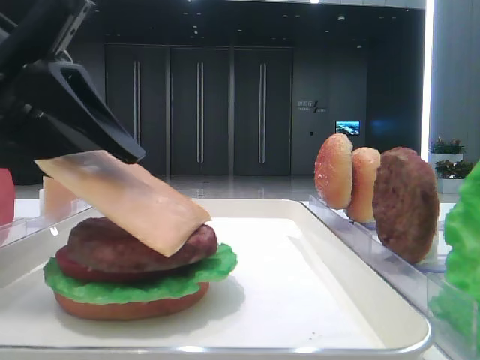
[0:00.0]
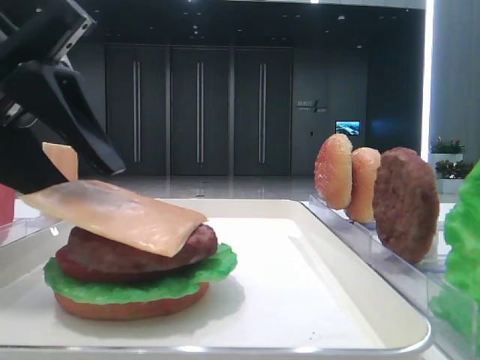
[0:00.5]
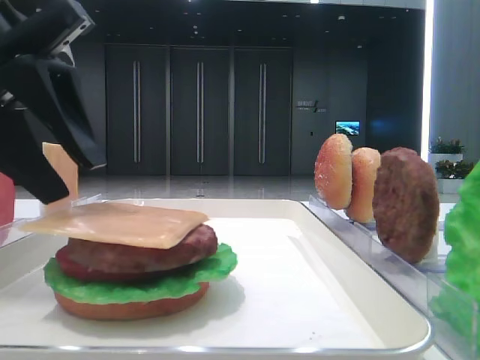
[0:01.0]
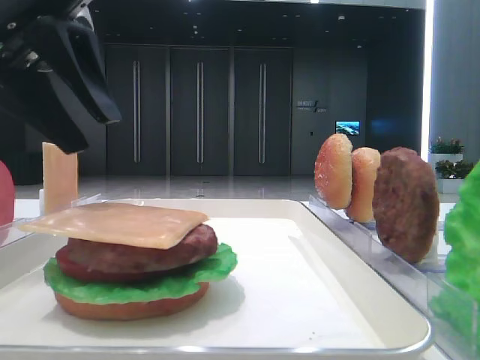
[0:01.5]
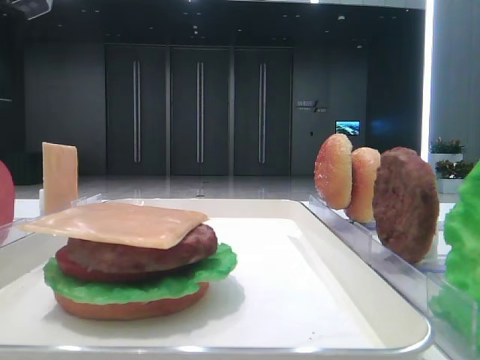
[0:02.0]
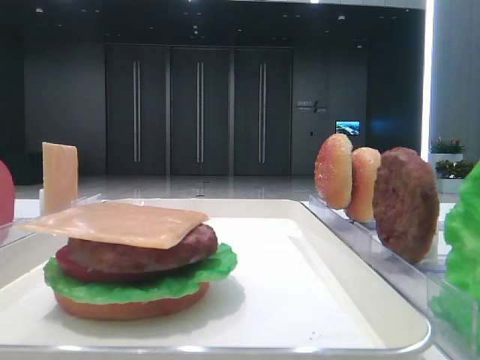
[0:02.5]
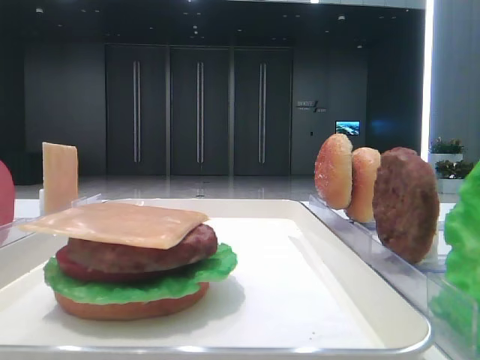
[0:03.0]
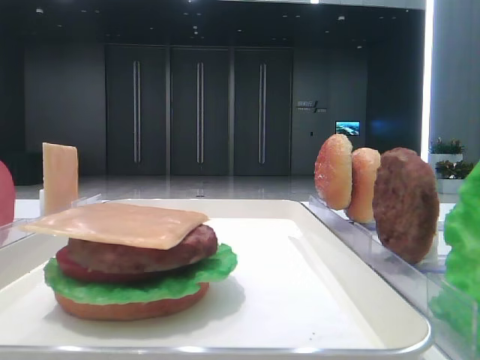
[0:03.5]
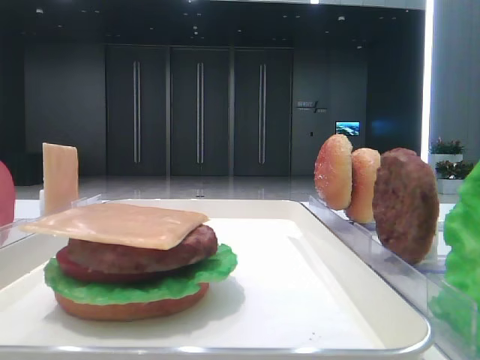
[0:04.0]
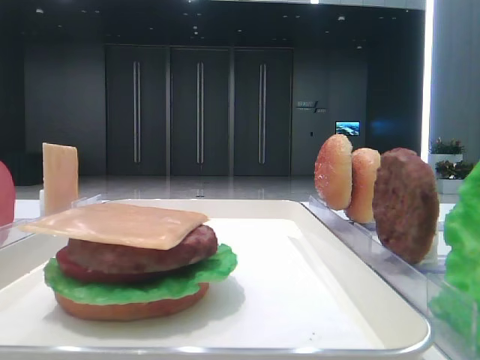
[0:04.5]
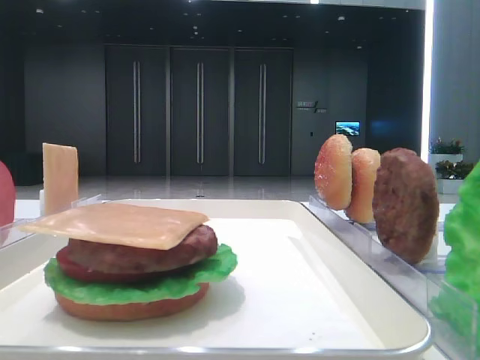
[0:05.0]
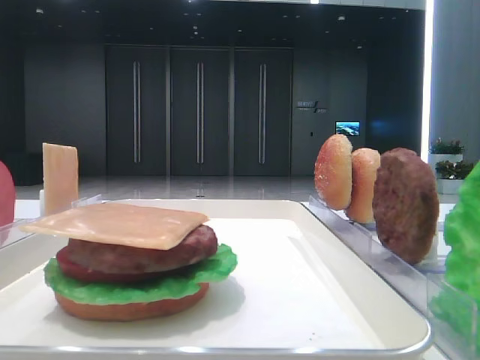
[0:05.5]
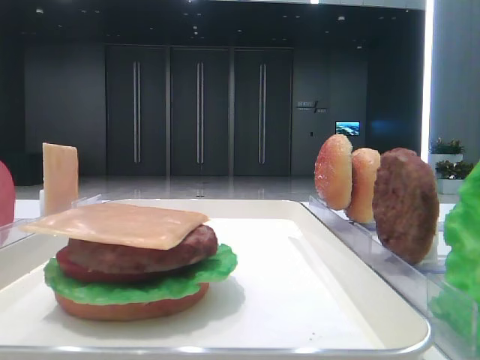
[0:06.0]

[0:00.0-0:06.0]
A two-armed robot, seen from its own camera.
0:00.0 to 0:02.0: The left gripper goes roughly 15 cm upward, forward and to the left.

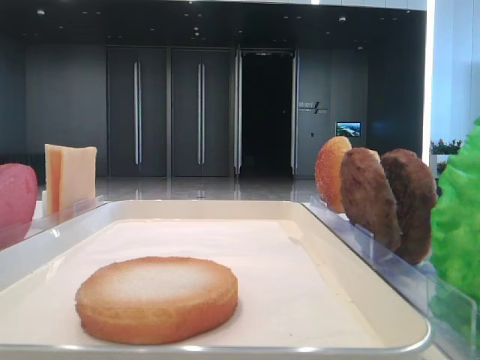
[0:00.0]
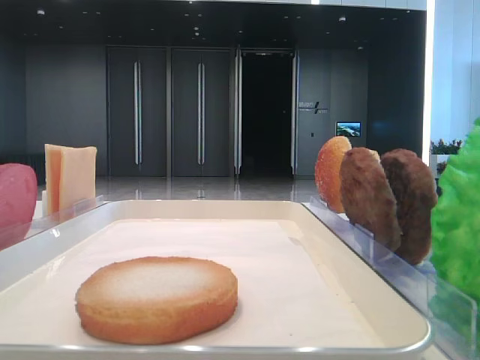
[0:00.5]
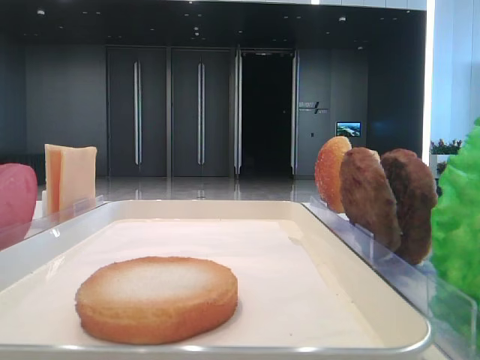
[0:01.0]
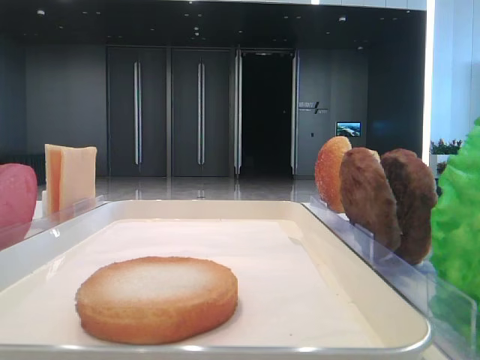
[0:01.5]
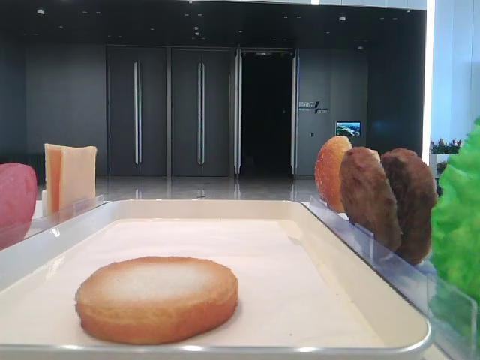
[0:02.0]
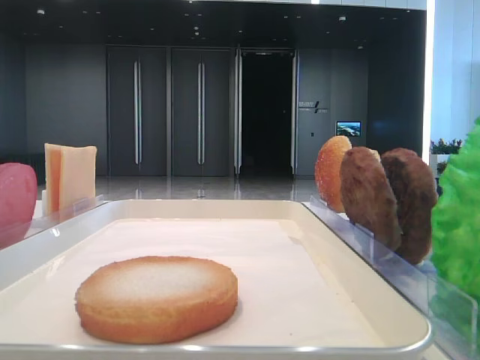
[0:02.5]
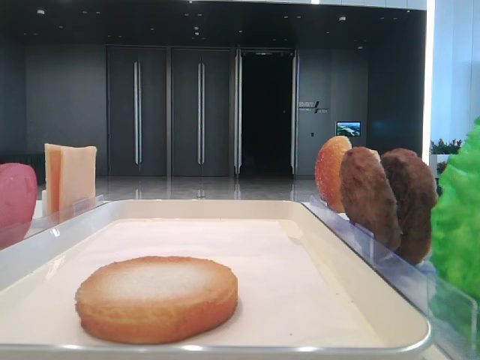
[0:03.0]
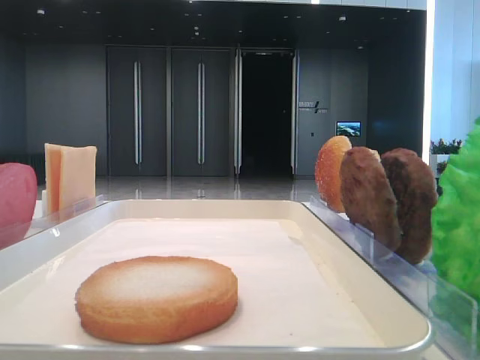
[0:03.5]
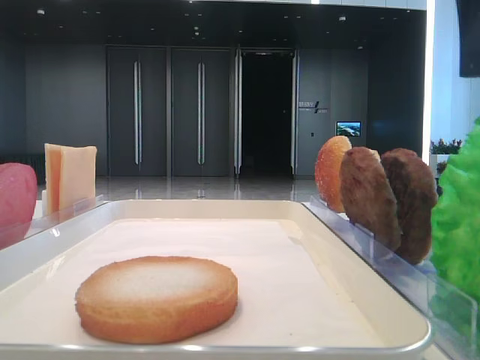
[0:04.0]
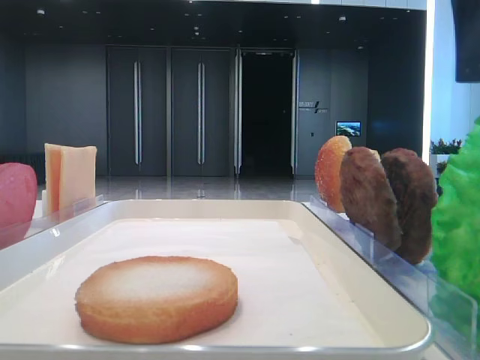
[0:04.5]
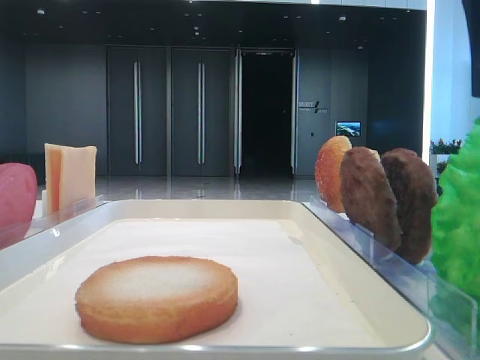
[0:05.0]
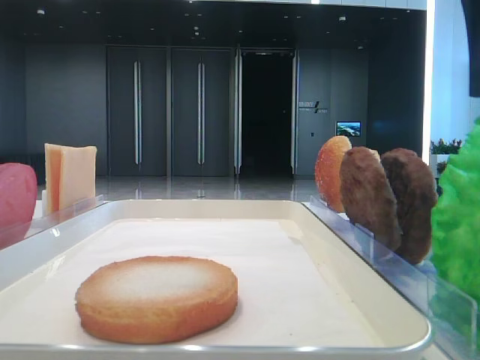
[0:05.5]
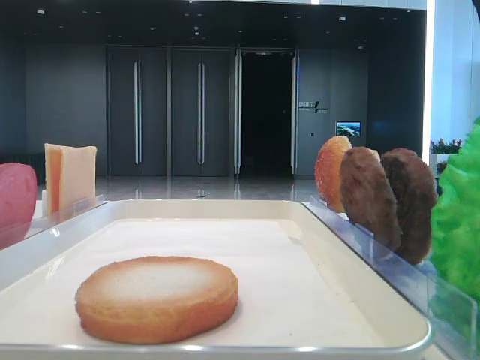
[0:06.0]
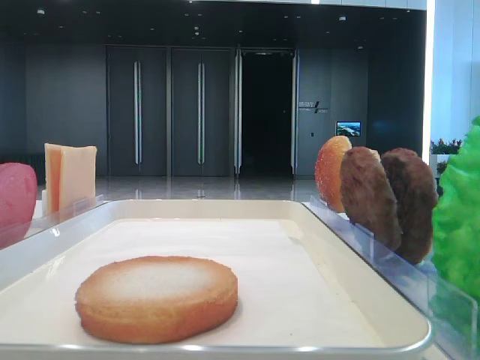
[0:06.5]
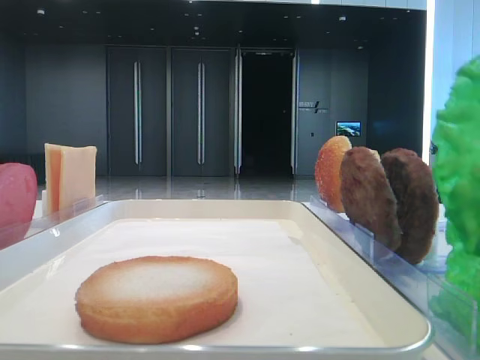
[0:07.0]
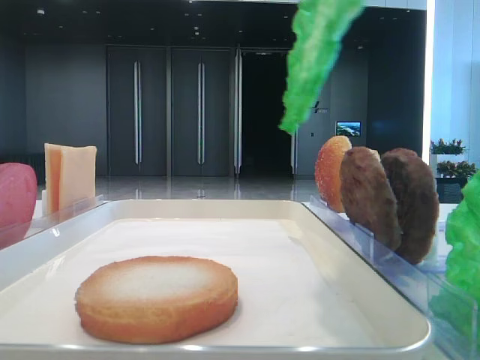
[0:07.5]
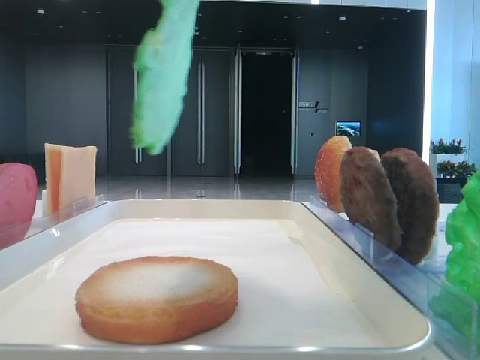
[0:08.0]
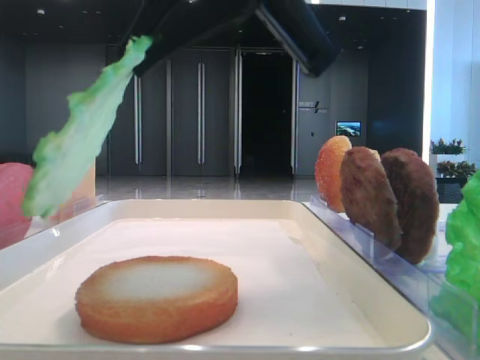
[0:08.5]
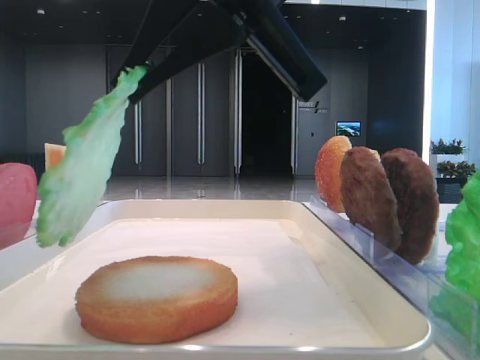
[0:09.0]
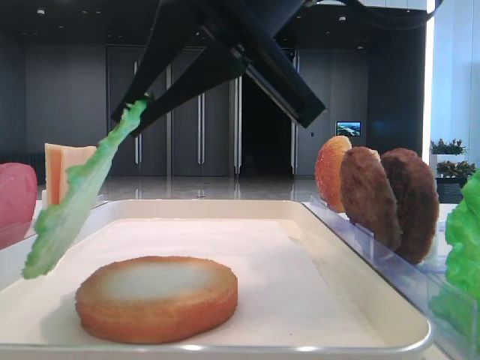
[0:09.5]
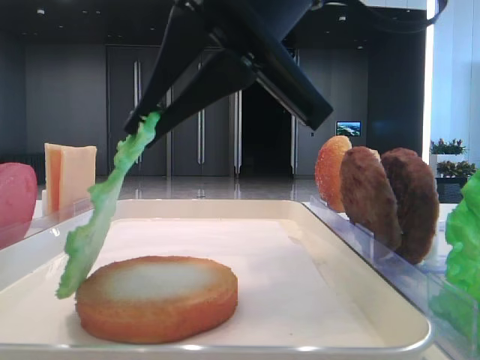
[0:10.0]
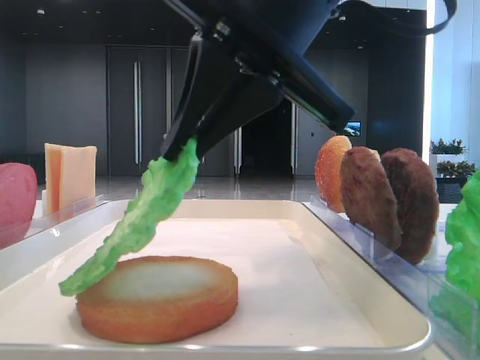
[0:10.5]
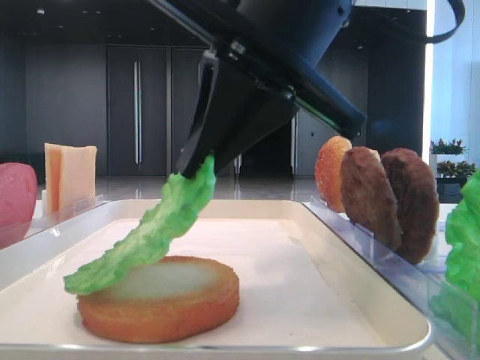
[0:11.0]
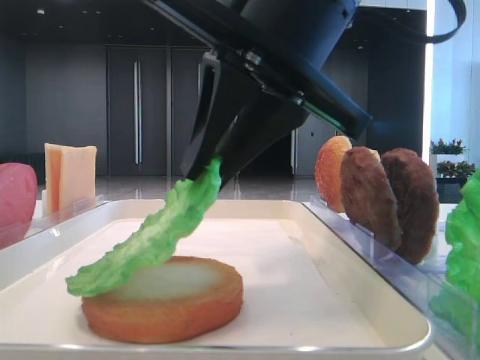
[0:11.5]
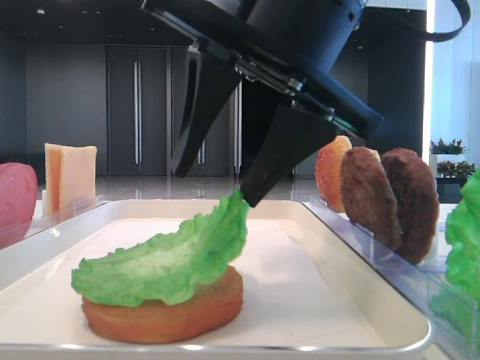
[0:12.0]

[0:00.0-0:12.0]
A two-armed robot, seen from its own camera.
Step, 0:07.0 to 0:12.0: Place the lettuce leaf on the bottom bread with the right hand.
0:02.0 to 0:04.0: The right gripper heads to the left and forward, covering some 15 cm.
0:04.0 to 0:06.0: The right gripper closes up.
0:06.0 to 0:08.0: The right gripper heads to the left, covering some 10 cm, and closes.
0:08.0 to 0:10.0: The right gripper moves downward, about 10 cm.
0:10.0 to 0:12.0: The right gripper opens up.

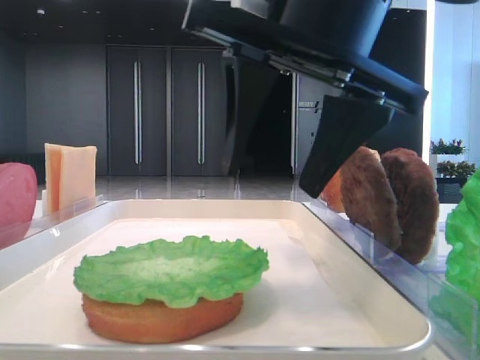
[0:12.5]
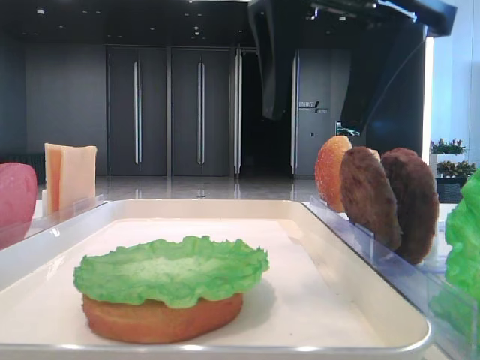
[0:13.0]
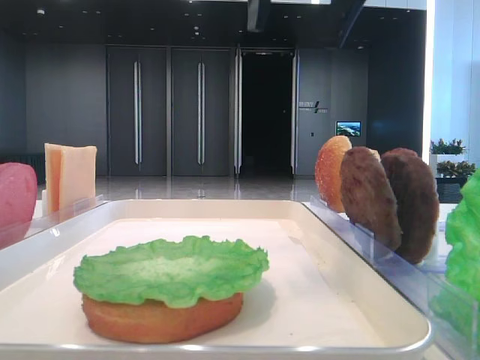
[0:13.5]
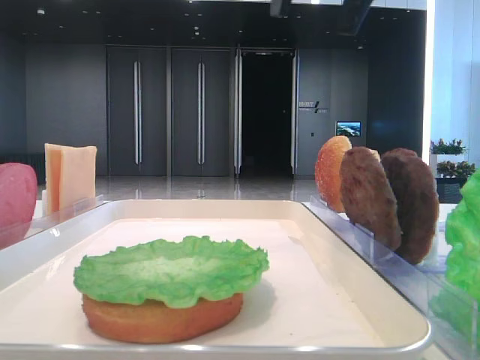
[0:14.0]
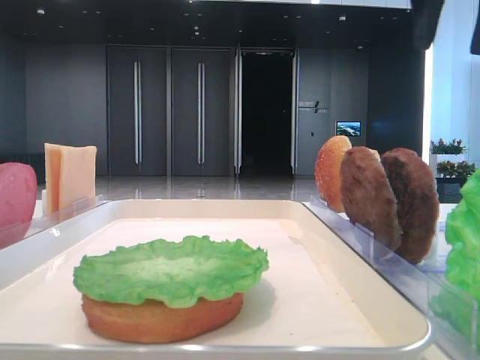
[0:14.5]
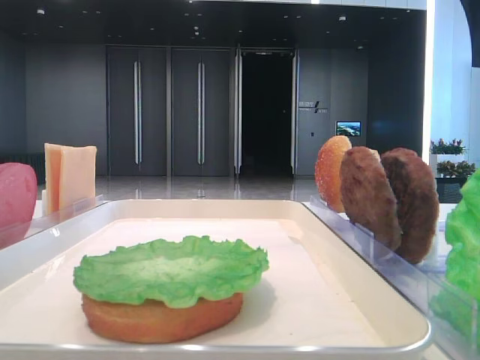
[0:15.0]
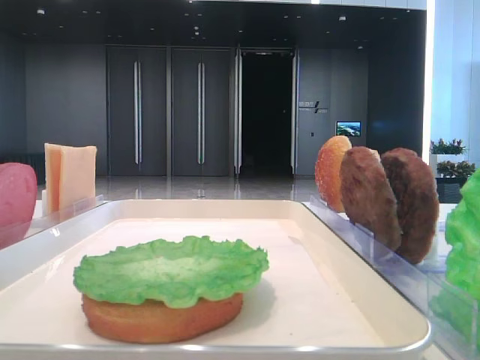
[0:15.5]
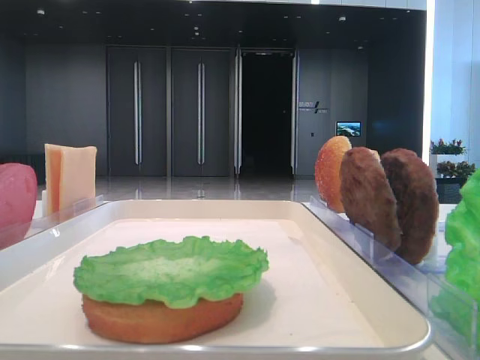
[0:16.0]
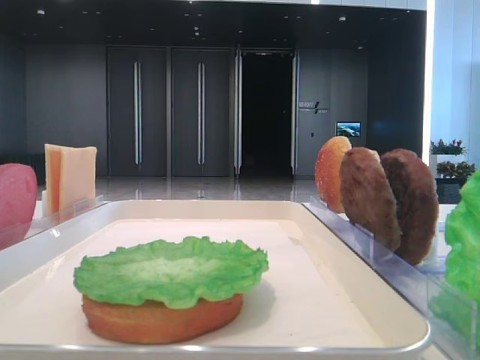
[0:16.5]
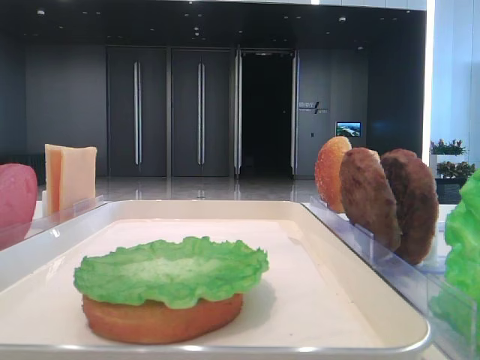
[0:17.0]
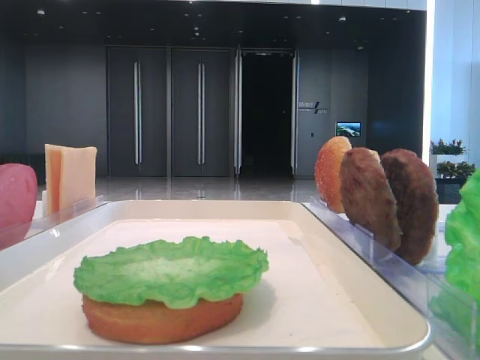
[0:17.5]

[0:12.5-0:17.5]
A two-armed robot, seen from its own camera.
0:12.5 to 0:15.0: The right gripper is displaced to the right, upward and forward by roughly 25 cm.
0:15.0 to 0:17.5: The right gripper heads backward, covering about 35 cm.

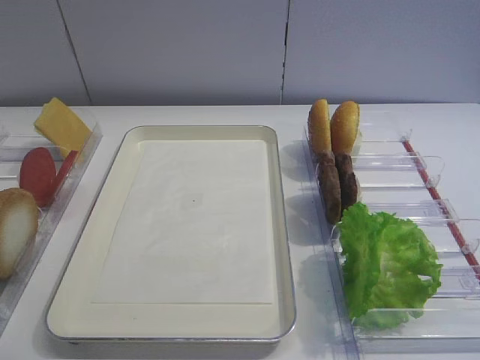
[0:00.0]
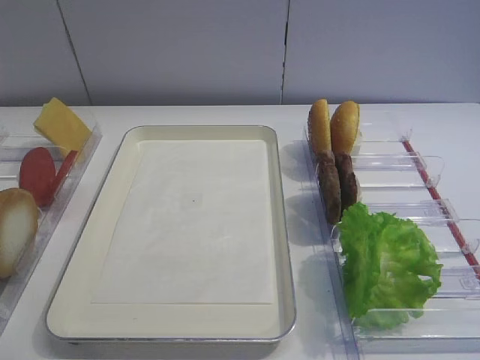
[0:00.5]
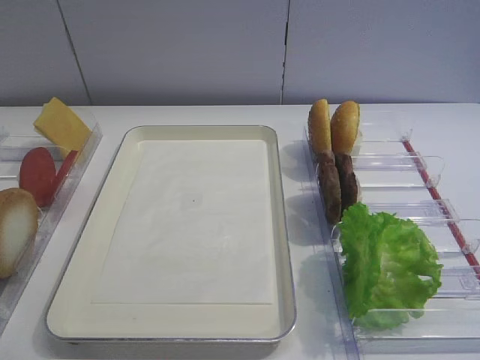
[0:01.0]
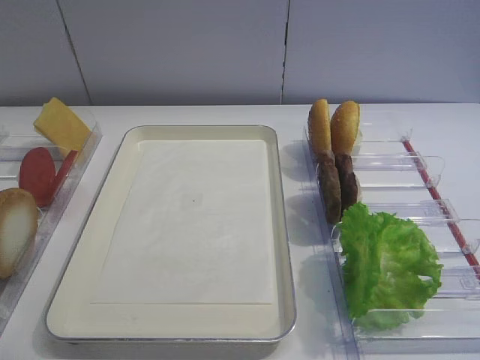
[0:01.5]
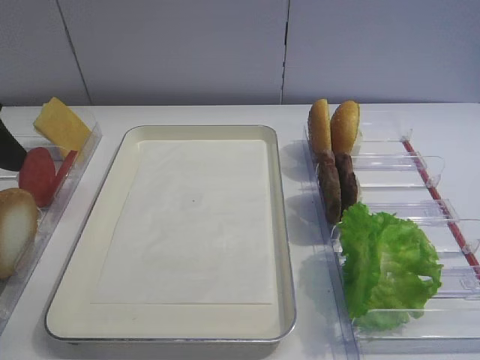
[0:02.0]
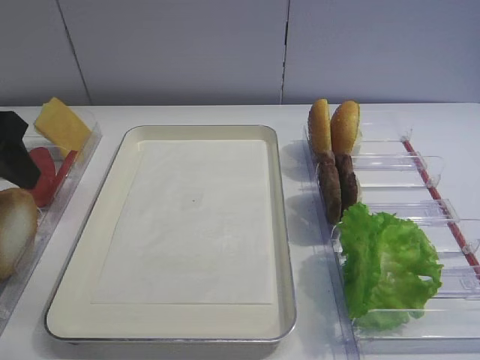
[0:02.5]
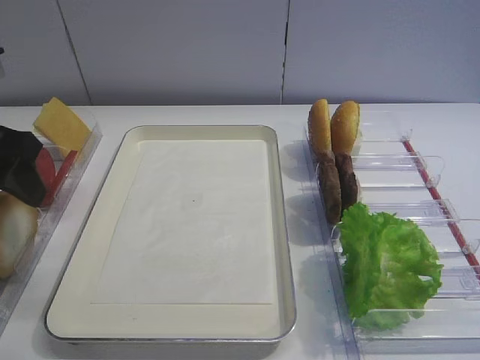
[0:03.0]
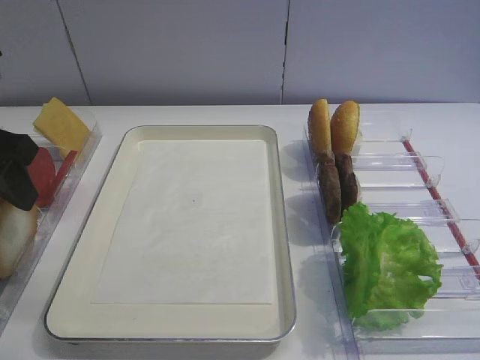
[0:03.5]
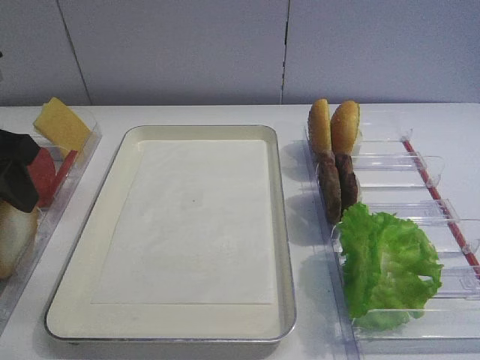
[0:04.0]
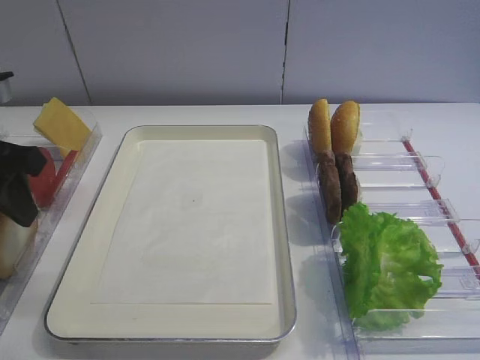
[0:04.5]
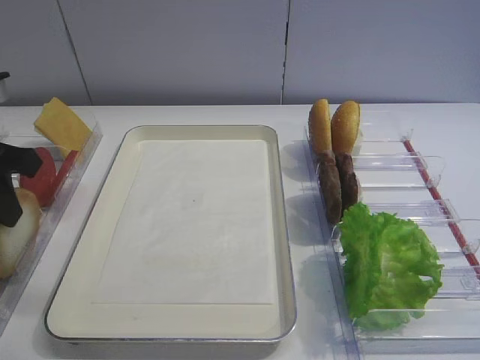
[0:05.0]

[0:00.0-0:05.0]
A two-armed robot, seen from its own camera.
0:02.5 to 0:05.0: The left gripper closes.
